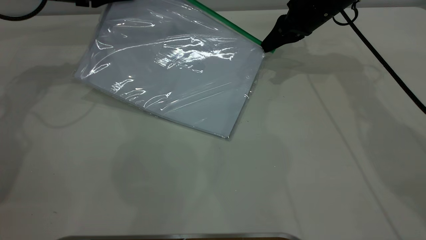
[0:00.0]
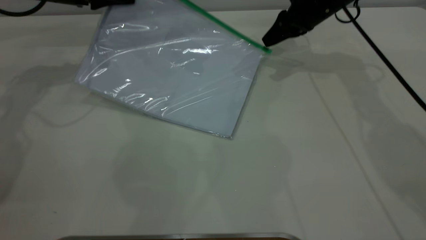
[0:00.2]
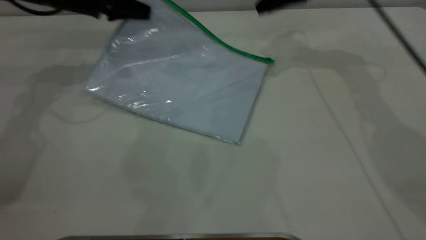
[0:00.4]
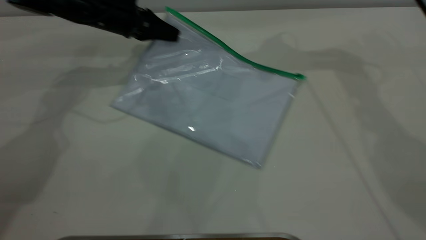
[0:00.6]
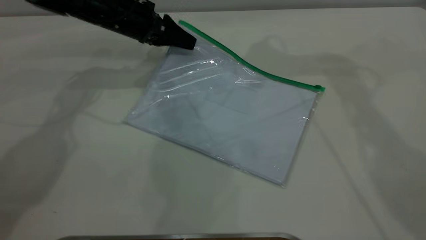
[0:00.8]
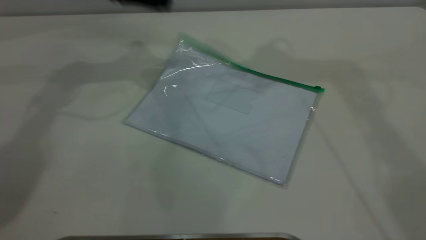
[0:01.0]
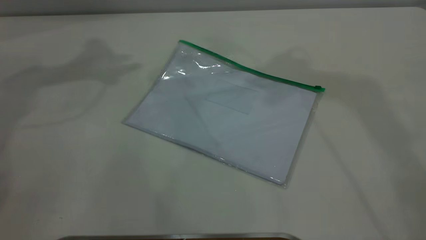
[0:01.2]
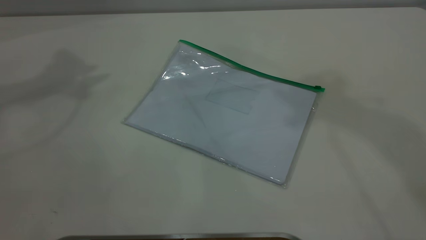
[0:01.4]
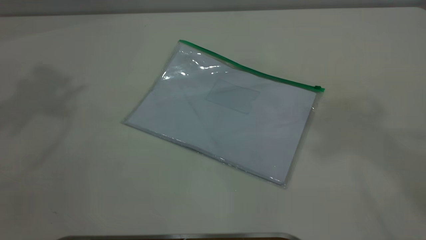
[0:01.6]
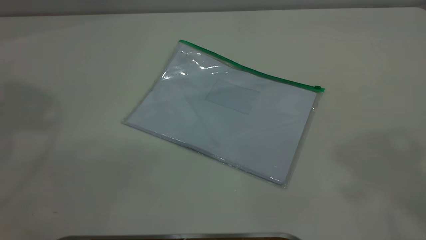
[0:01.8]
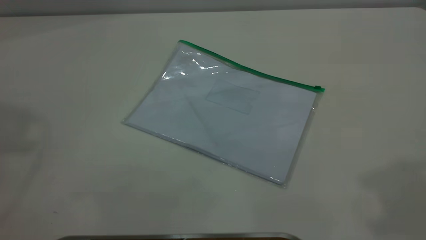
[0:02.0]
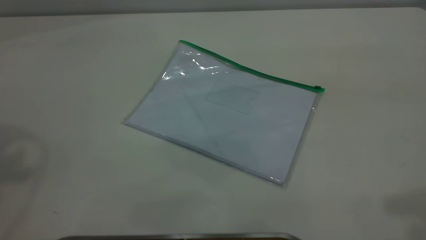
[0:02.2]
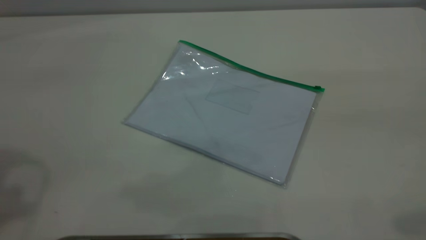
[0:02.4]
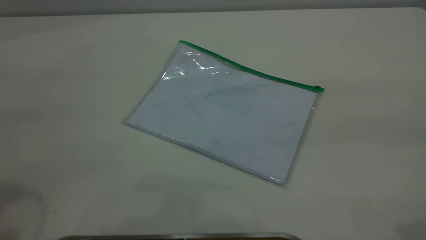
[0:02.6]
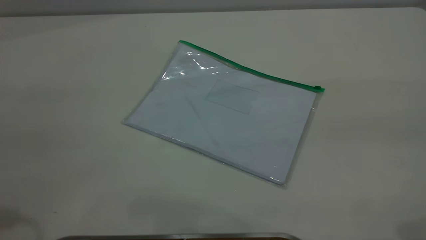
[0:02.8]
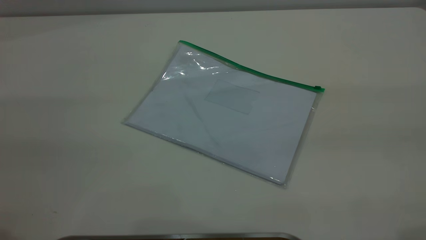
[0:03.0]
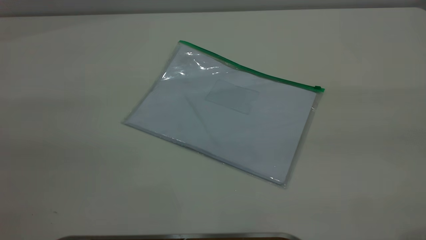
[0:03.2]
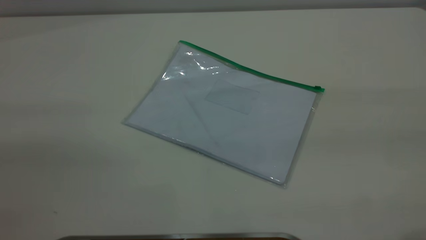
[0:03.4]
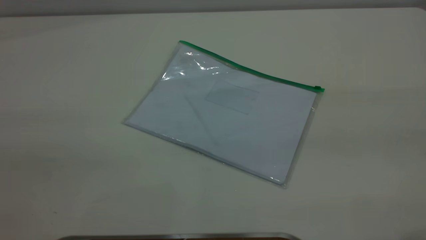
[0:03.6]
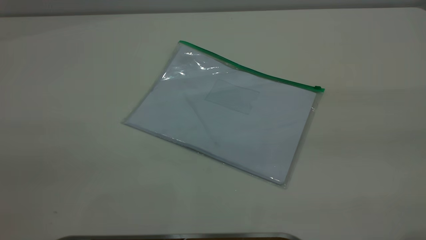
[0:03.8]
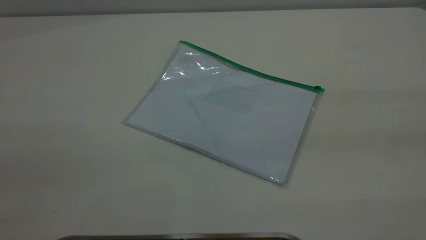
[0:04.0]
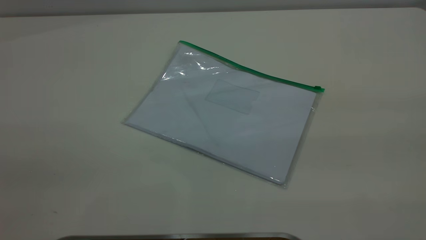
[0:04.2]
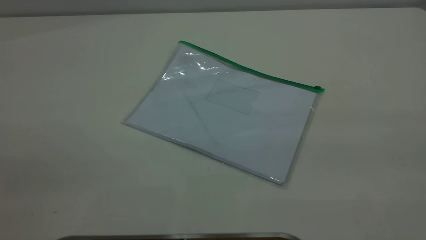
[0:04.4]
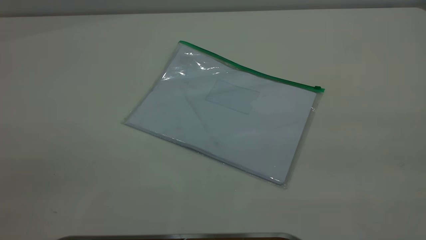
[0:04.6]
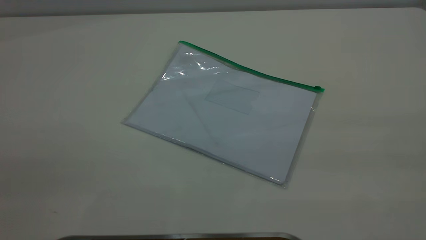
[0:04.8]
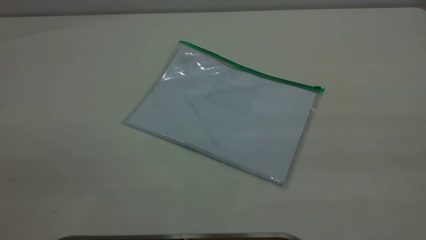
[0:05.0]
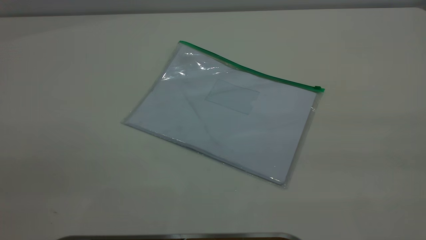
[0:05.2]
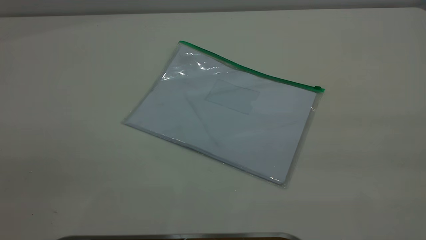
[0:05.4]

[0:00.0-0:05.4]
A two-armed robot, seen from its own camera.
Step, 0:00.4 to 0:00.8: Place the transparent plastic bag.
0:00.0 to 0:01.4: The left gripper shifts roughly 30 cm upward, and opens its fingers; the right gripper travels upward and backward by roughly 50 cm, and opens.
